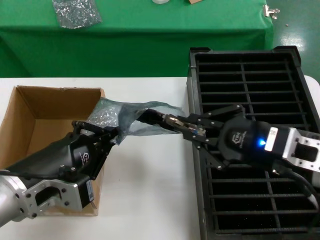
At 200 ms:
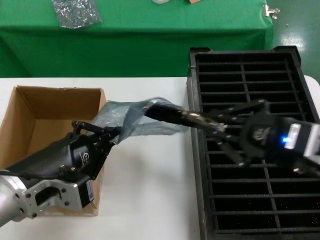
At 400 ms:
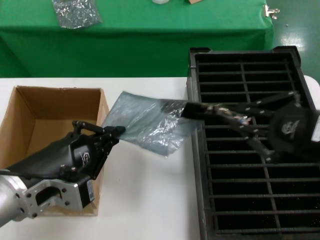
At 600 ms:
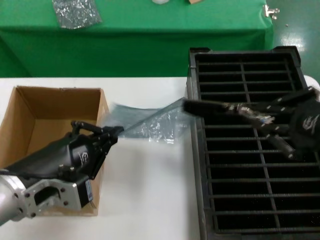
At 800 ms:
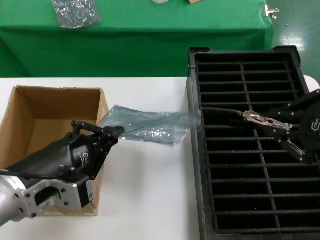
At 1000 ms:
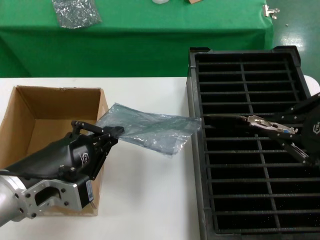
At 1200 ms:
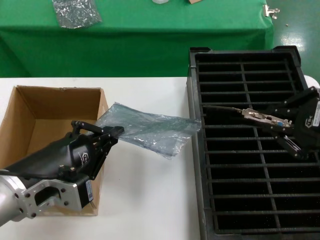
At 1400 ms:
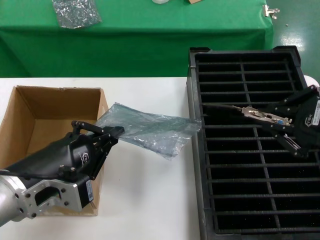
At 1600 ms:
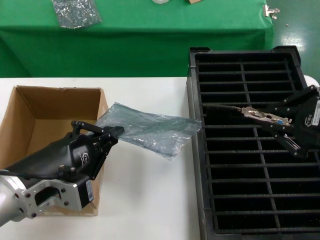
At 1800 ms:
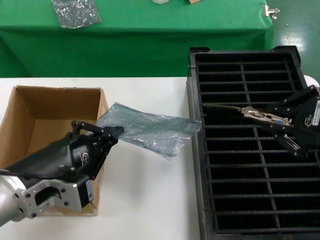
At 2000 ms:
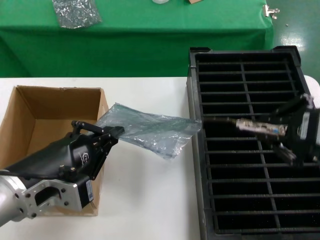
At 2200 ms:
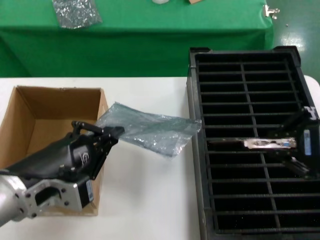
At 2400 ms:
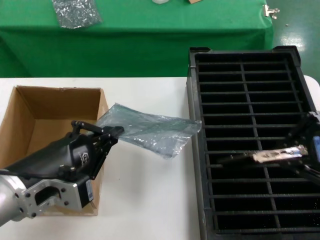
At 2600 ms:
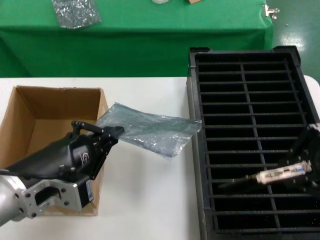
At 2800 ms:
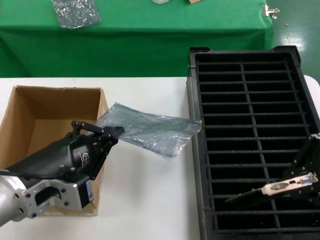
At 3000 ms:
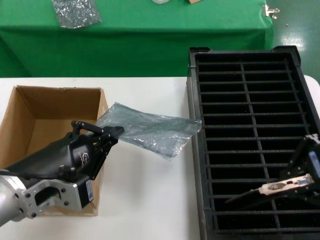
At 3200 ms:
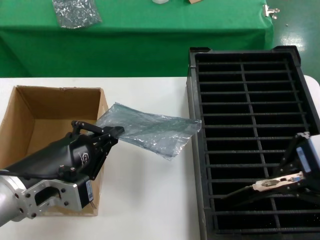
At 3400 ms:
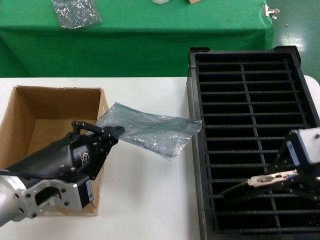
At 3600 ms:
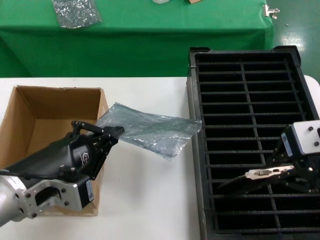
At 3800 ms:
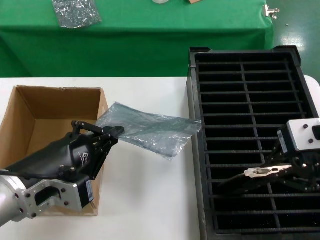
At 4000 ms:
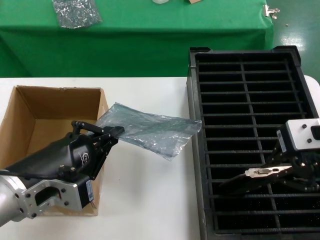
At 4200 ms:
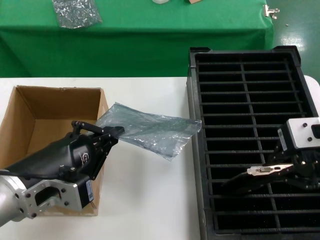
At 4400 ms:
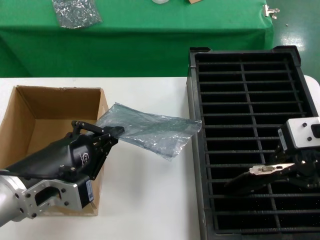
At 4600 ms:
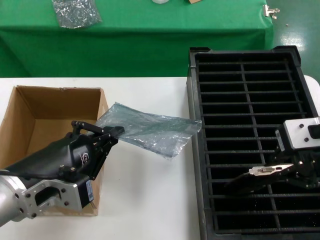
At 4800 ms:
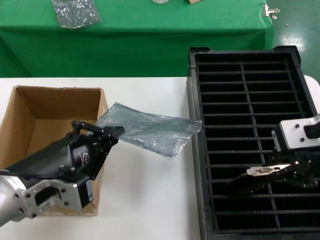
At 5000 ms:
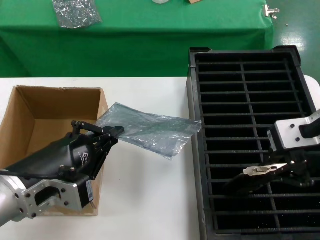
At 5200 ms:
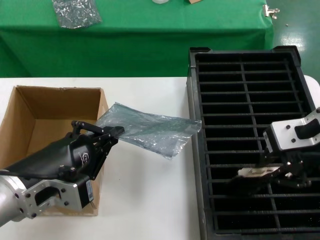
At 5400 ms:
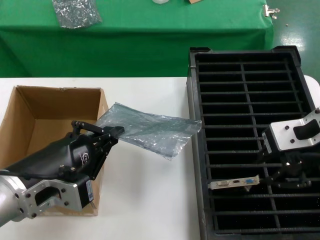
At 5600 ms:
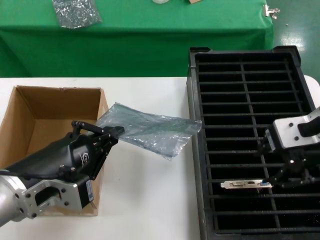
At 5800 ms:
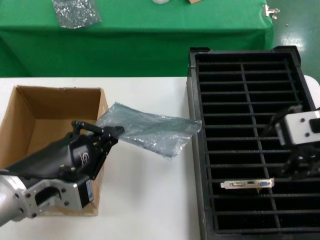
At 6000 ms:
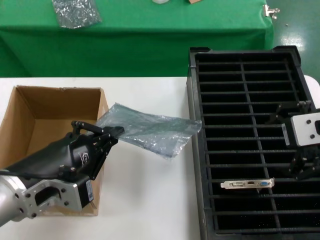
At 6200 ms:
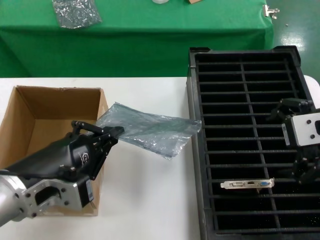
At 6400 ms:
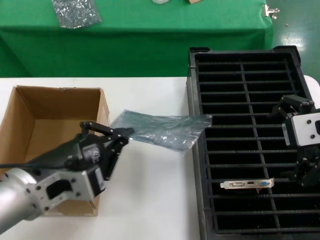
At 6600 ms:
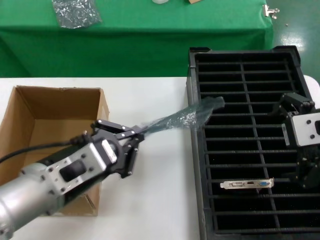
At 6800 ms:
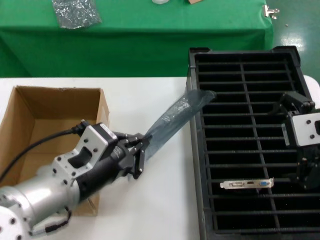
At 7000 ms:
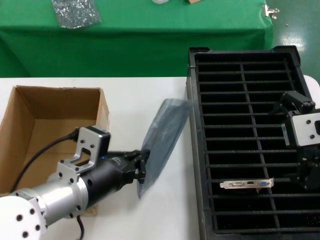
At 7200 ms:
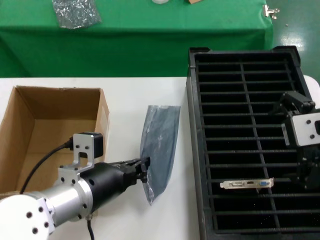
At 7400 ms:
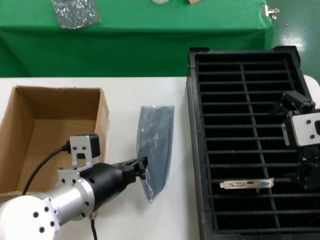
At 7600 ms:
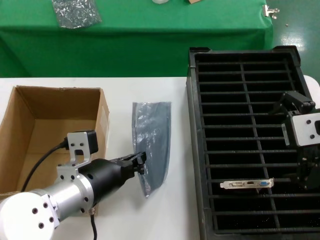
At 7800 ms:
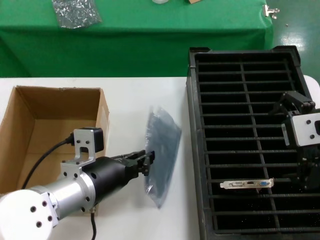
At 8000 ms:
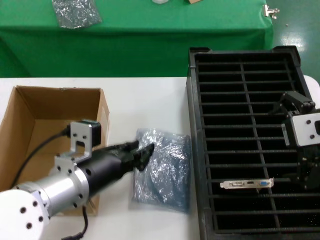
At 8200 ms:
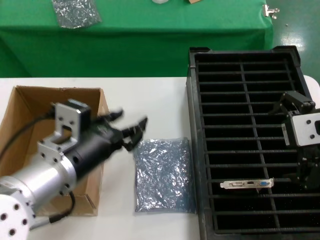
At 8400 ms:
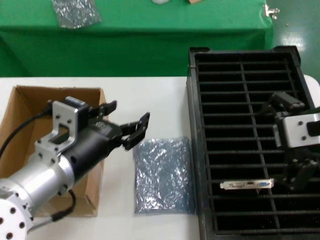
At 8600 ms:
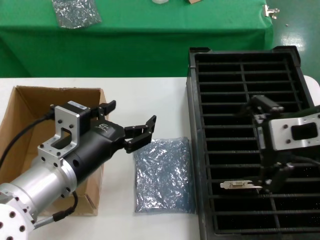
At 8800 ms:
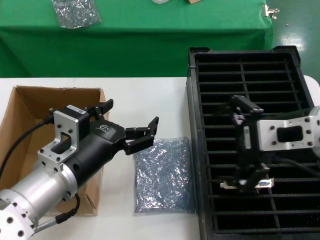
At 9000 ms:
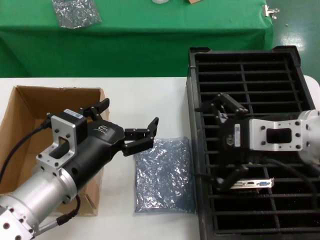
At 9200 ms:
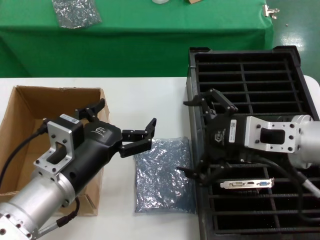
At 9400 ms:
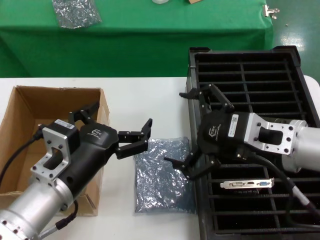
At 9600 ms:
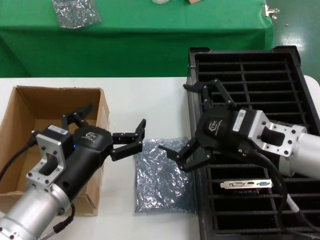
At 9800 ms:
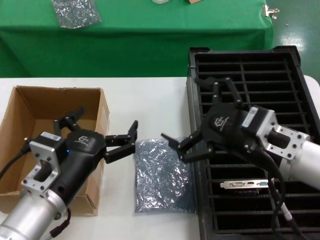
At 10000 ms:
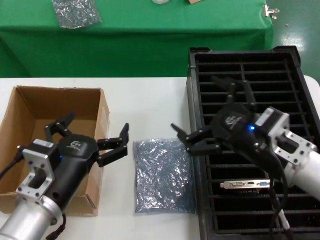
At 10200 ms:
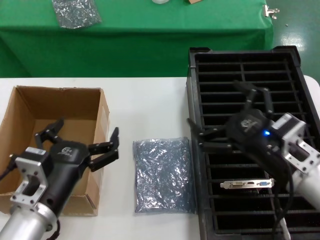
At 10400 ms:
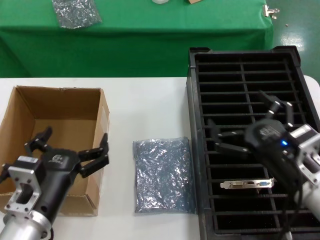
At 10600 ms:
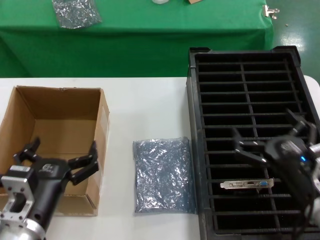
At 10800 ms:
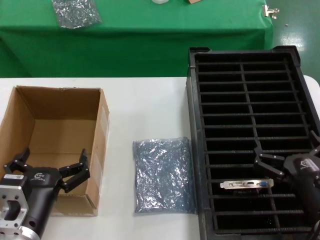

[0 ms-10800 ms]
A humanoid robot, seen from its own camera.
Task of the whole recording: take out graphics card from box remove packaging put into black container.
Step, 800 ms to 5400 ms: Place the hard disk in the hard disk enclosure.
Step, 5600 ms to 8000 ms: Place the down the bag.
0 ms to 1600 ms: The right hand moves upward and backward, about 10 cm.
1600 ms to 3000 ms: The right hand ends up roughly 5 cm from where it was.
3000 ms to 4600 ms: The right hand moves forward, about 5 cm.
4600 ms to 6200 ms: The hands move only a little.
6200 ms to 7800 ms: The left hand goes some 10 cm forward and to the right.
7800 ms to 9200 ms: The right hand travels downward by roughly 5 cm.
9200 ms to 10800 ms: The left hand shifts roughly 10 cm downward, while the right hand goes approximately 20 cm downward.

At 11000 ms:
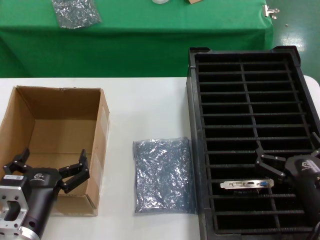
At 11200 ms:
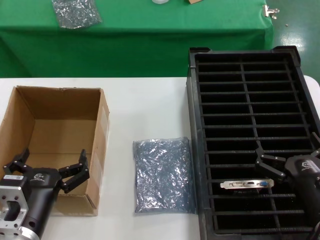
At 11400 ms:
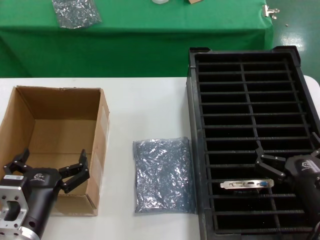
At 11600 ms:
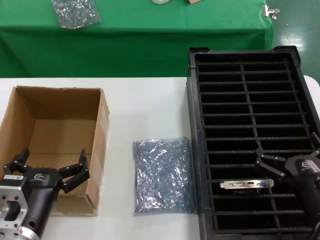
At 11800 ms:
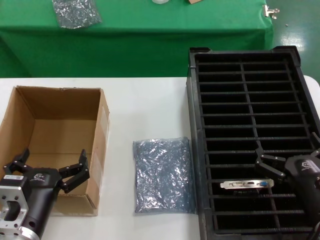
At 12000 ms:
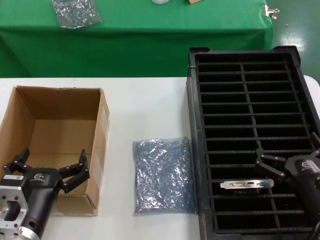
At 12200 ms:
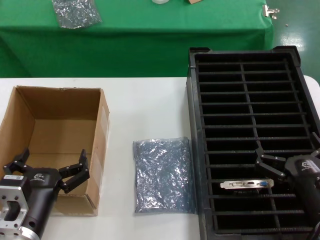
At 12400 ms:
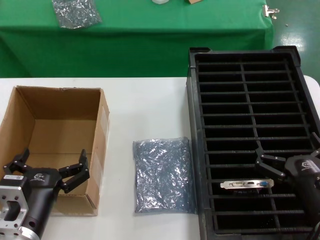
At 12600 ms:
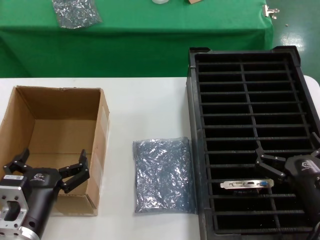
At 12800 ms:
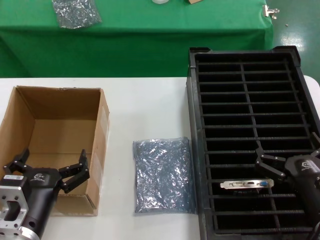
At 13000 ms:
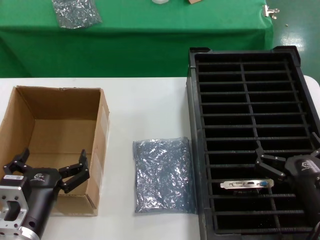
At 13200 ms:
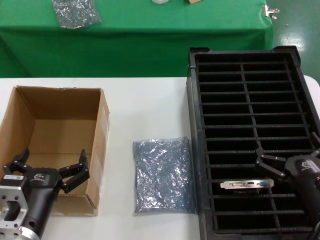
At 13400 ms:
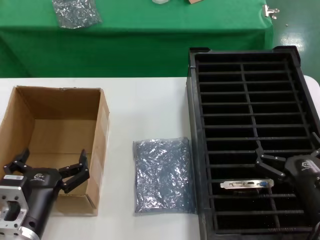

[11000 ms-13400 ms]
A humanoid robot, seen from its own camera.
Task of the whole recording: take out graphics card from box remove packaging put into black container.
11000 ms to 13400 ms: Both hands stay about where they are.
